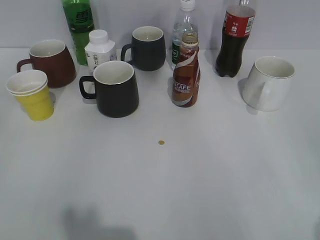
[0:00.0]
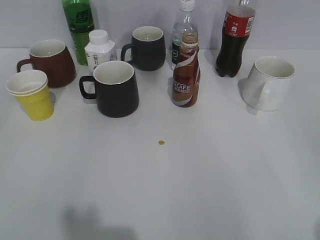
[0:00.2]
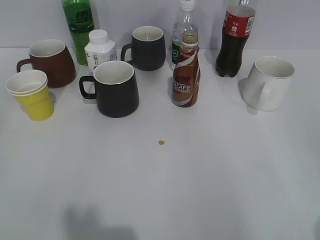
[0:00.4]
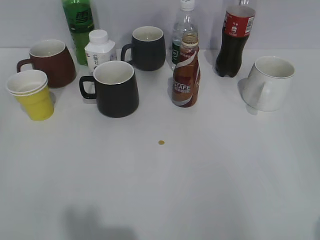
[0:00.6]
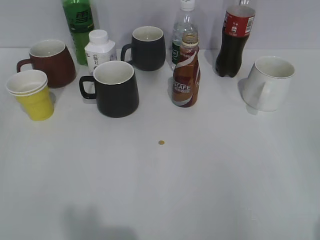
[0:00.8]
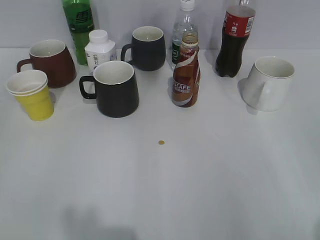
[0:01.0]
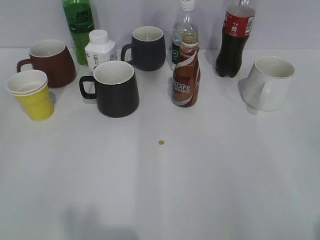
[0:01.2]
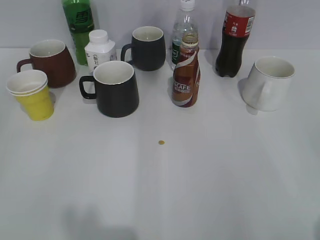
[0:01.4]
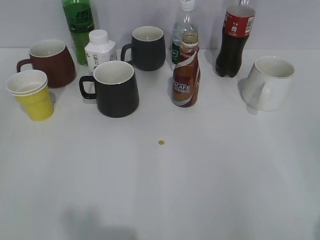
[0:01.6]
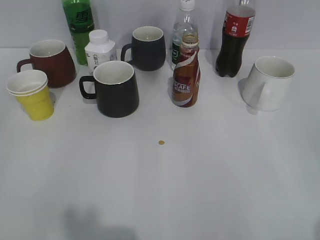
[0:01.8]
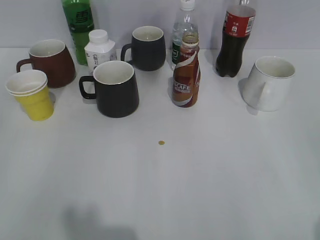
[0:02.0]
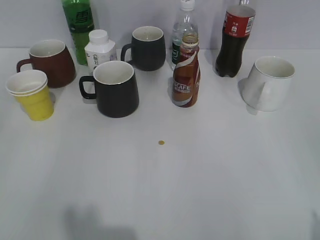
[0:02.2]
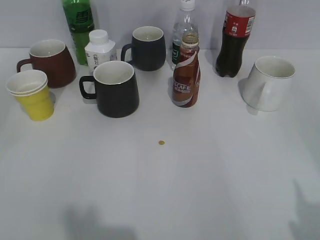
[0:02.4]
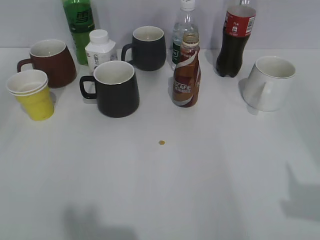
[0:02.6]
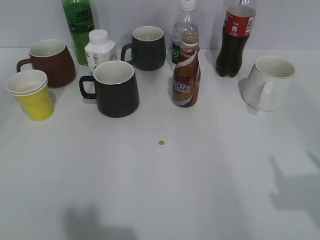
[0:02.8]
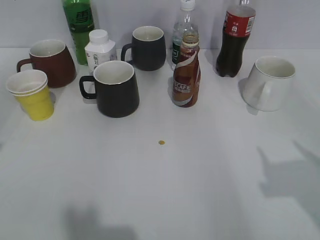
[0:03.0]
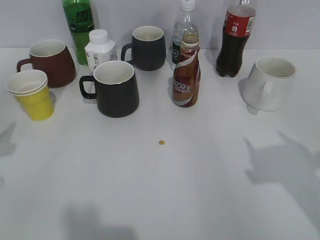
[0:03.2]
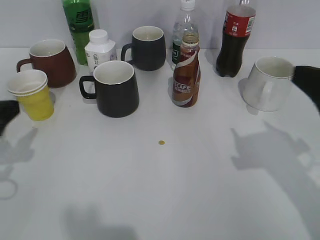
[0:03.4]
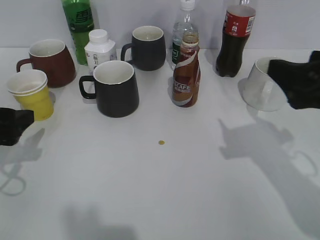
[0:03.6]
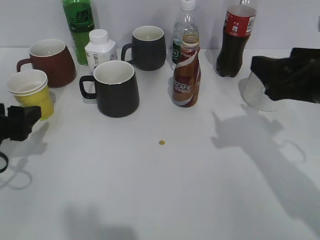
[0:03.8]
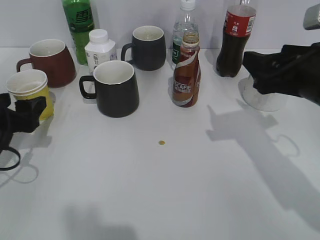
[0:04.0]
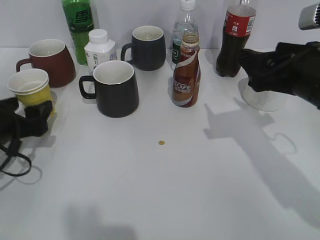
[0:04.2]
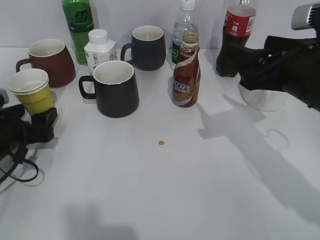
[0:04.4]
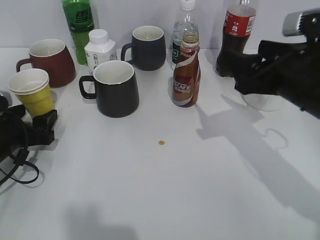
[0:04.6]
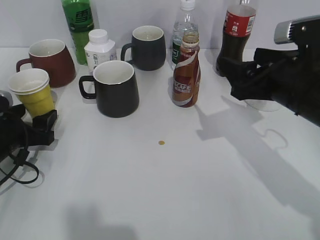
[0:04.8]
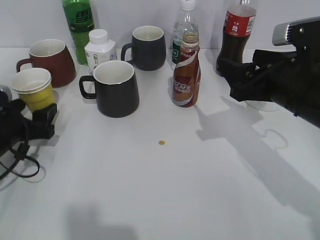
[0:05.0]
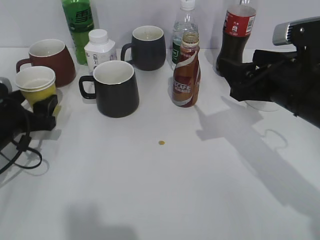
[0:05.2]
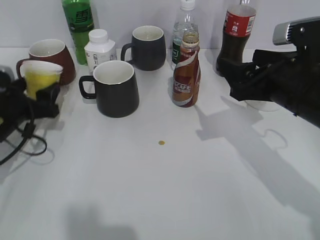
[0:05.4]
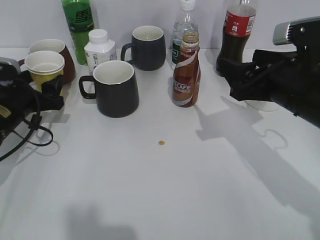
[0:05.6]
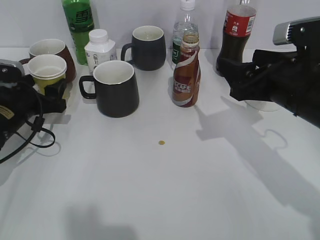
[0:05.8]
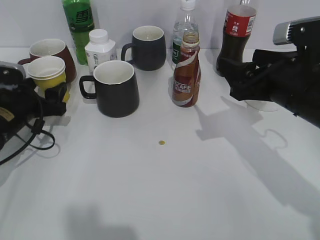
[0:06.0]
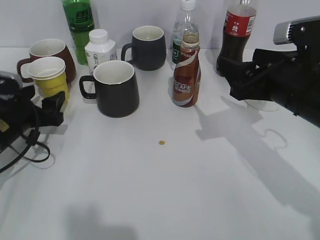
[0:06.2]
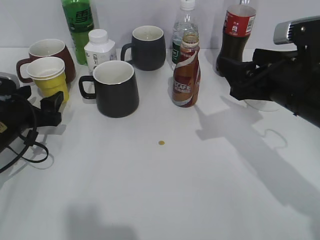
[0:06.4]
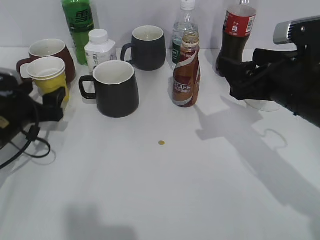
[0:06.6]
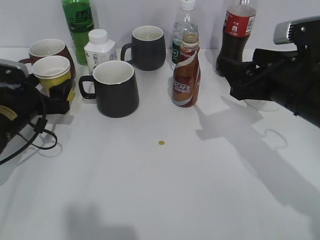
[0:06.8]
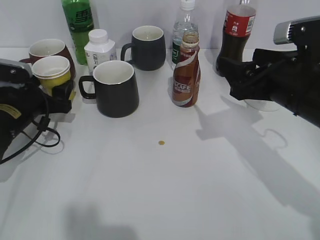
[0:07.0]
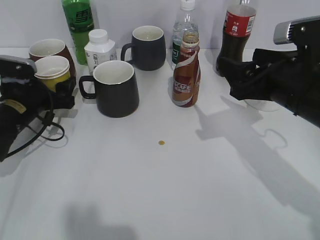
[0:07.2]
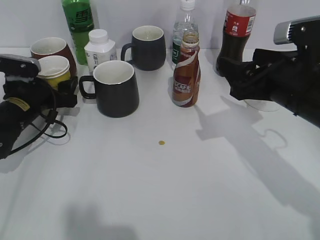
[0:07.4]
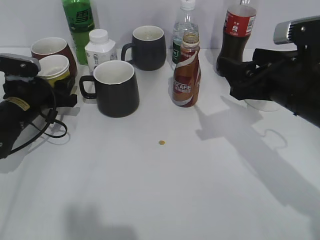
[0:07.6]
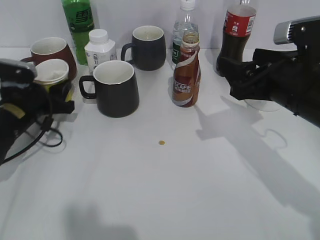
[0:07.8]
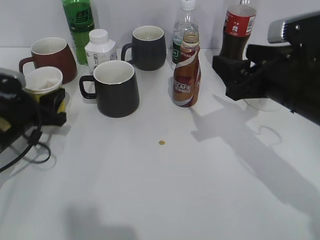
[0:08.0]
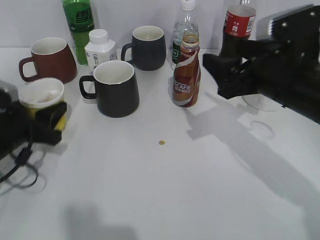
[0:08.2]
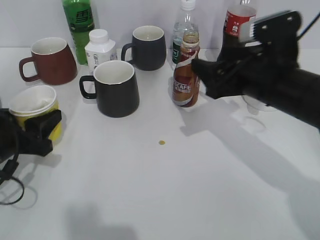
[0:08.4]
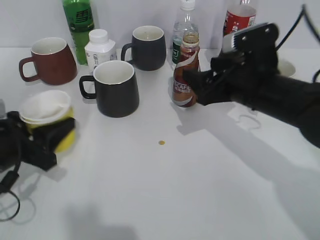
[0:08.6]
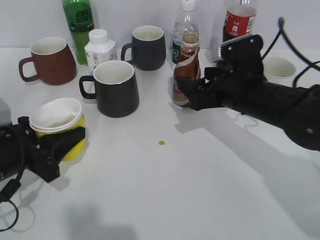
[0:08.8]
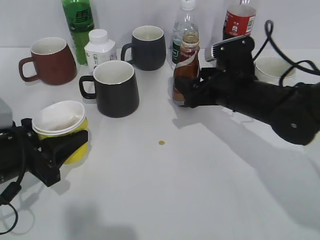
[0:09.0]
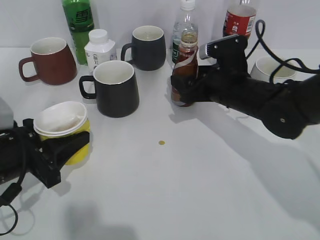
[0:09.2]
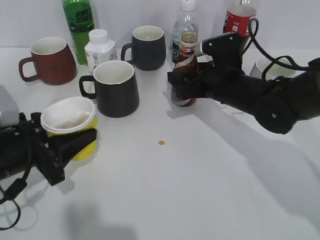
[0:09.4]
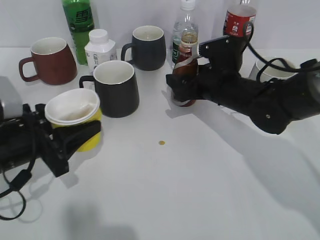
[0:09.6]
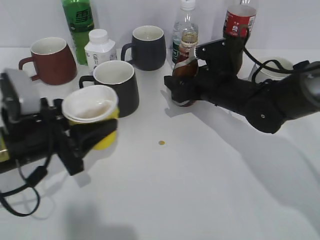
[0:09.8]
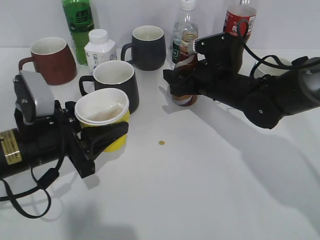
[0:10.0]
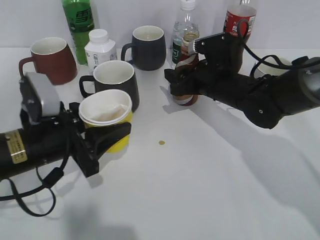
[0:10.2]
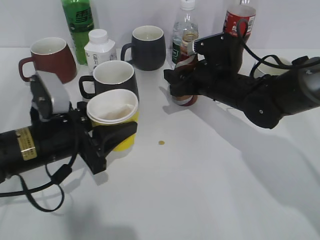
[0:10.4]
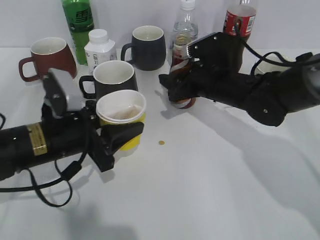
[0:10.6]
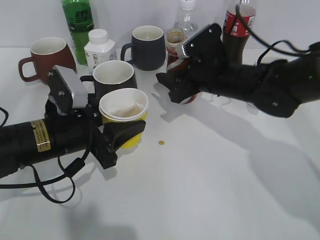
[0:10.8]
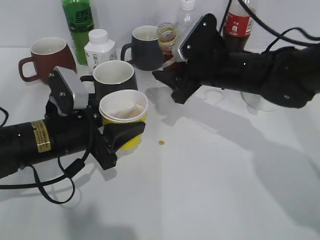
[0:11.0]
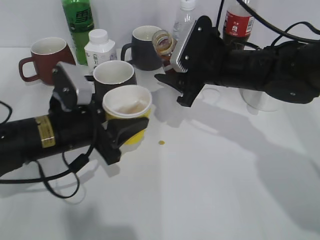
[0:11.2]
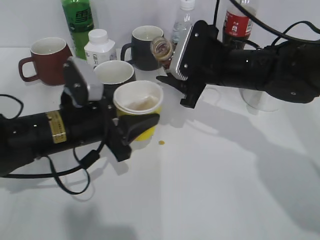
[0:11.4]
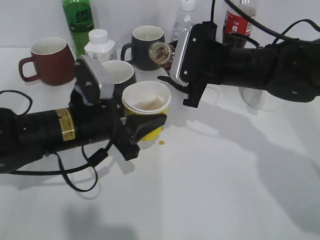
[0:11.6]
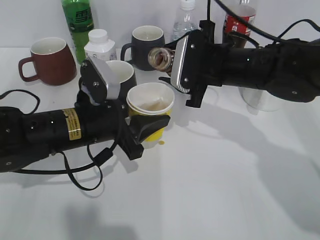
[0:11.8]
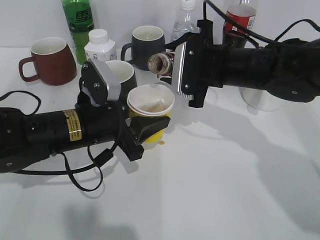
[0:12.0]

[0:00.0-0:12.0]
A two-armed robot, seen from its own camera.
Step, 1.8 to 7.6 s: Grasp the yellow paper cup with left gripper.
Step, 7.8 to 10.4 s: Grasp the bottle with coffee with right gripper.
1.6 to 3.0 s: The right gripper travels forward by some 10 cm.
3.0 to 4.4 s: The left gripper shifts approximately 20 cm downward and forward, and opens. Meanwhile the right gripper heads forward, to the left and downward, covering about 20 cm.
4.4 to 6.0 s: The left gripper goes about 5 cm forward.
6.0 to 7.6 s: There are only small adjustments of the grippers.
7.6 to 9.0 s: The right gripper is displaced forward, downward and to the left by some 10 cm. Meanwhile the left gripper moves backward, about 15 cm.
9.0 to 10.4 s: The left gripper moves to the right, roughly 5 cm. The right gripper goes roughly 5 cm forward, and closes.
10.4 to 12.0 s: The left gripper travels to the right by approximately 5 cm, while the right gripper travels upward by approximately 5 cm.

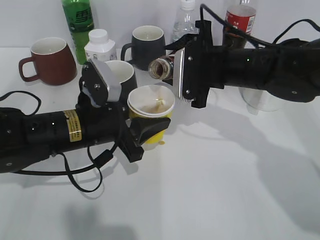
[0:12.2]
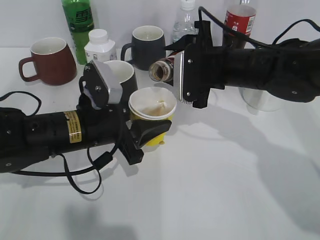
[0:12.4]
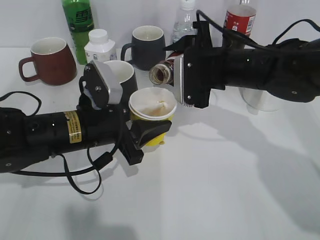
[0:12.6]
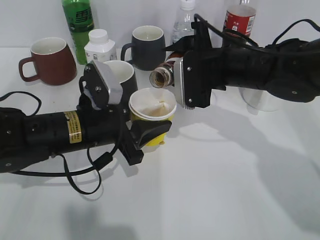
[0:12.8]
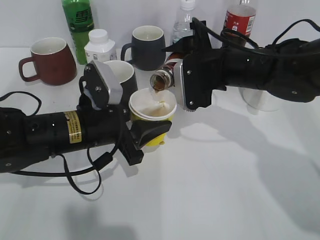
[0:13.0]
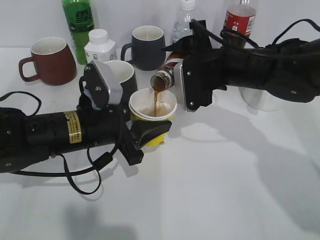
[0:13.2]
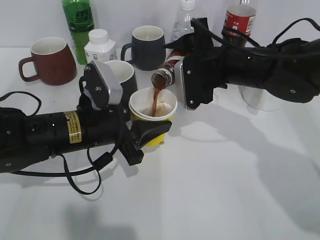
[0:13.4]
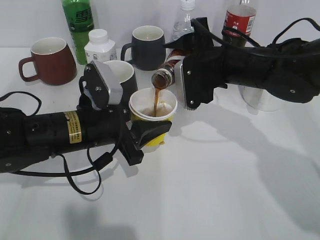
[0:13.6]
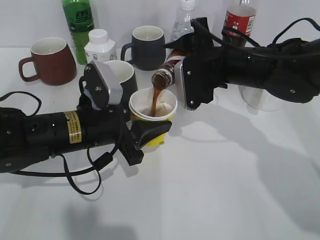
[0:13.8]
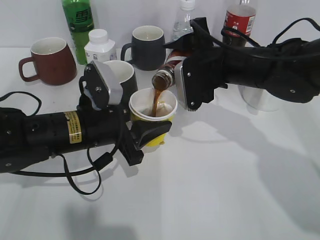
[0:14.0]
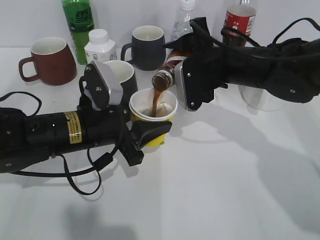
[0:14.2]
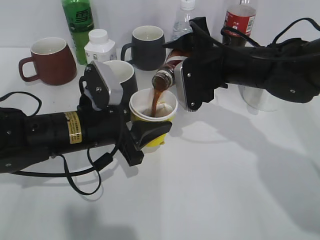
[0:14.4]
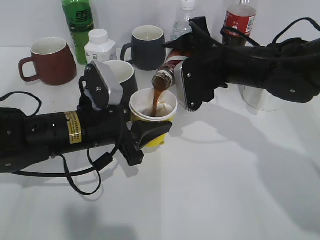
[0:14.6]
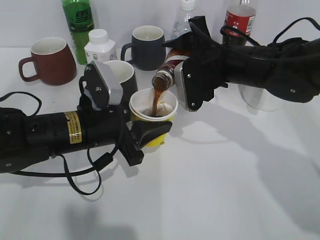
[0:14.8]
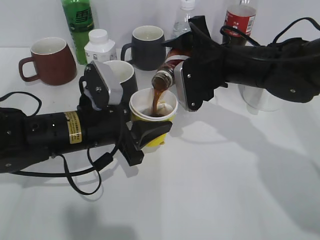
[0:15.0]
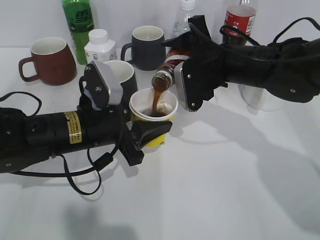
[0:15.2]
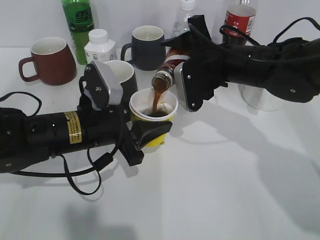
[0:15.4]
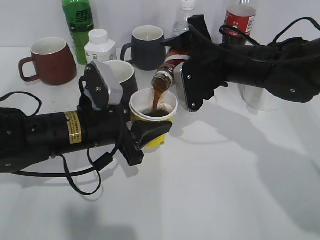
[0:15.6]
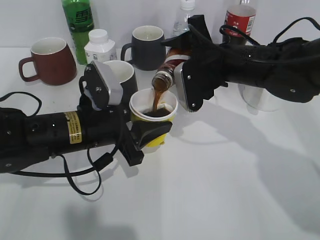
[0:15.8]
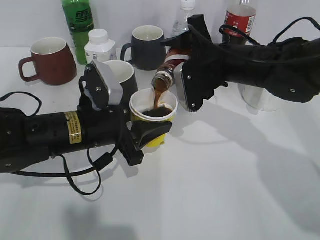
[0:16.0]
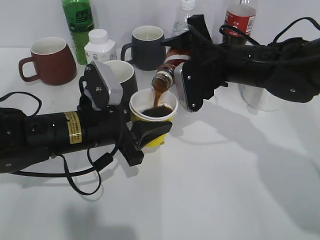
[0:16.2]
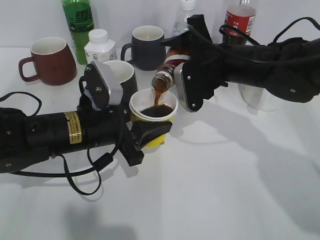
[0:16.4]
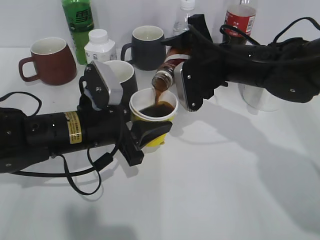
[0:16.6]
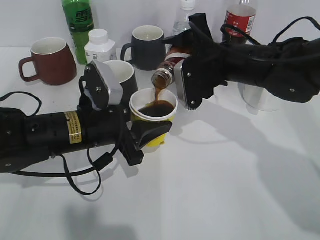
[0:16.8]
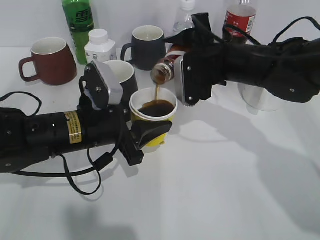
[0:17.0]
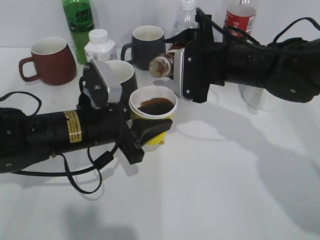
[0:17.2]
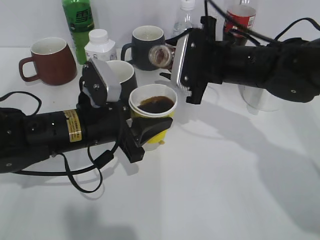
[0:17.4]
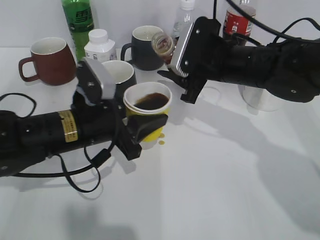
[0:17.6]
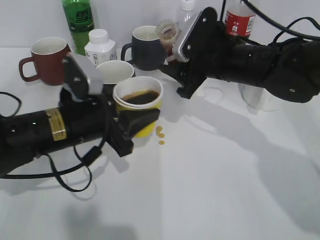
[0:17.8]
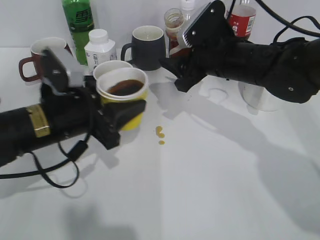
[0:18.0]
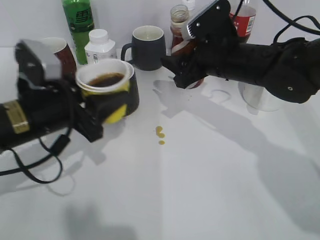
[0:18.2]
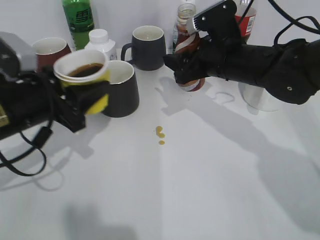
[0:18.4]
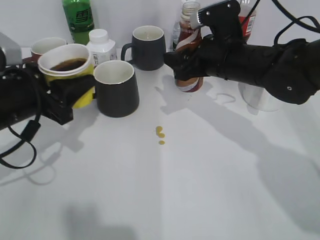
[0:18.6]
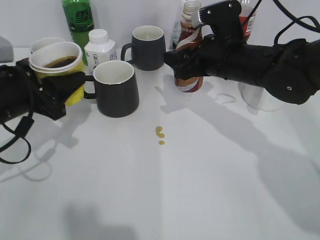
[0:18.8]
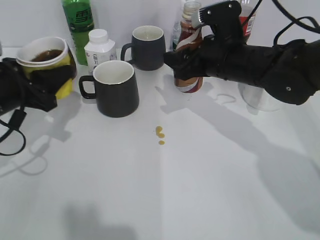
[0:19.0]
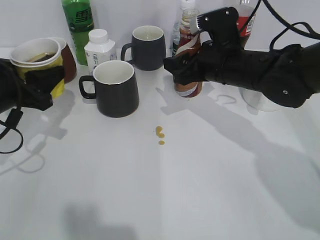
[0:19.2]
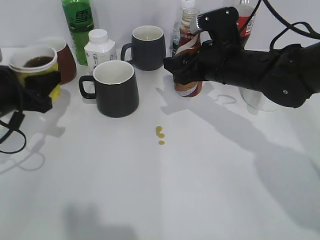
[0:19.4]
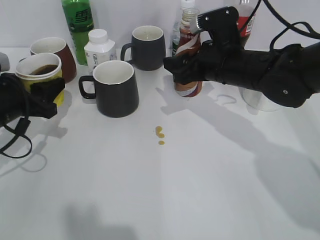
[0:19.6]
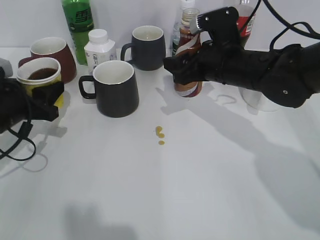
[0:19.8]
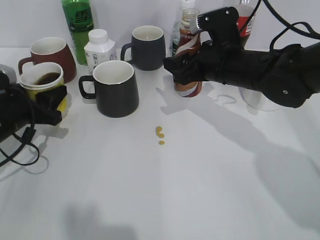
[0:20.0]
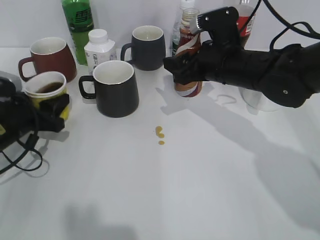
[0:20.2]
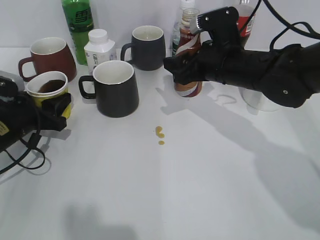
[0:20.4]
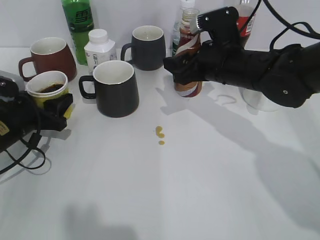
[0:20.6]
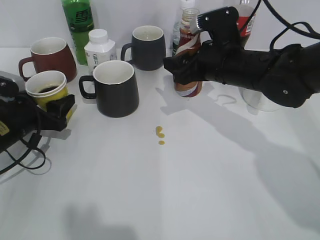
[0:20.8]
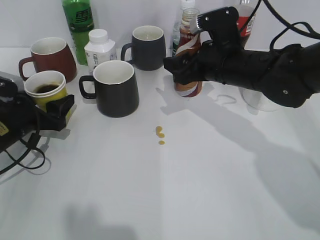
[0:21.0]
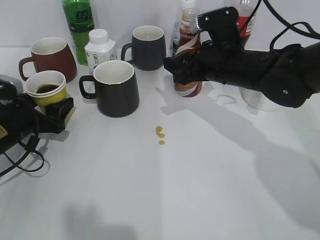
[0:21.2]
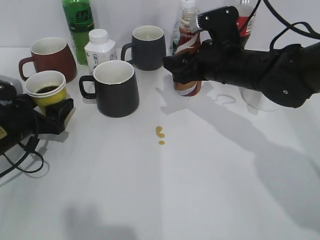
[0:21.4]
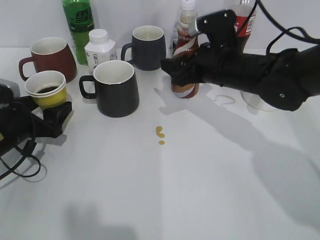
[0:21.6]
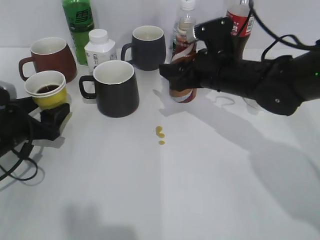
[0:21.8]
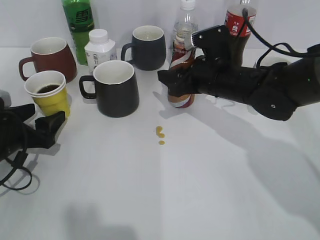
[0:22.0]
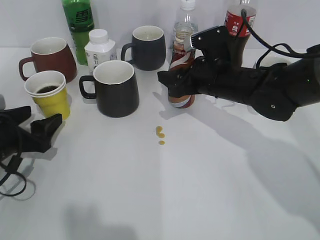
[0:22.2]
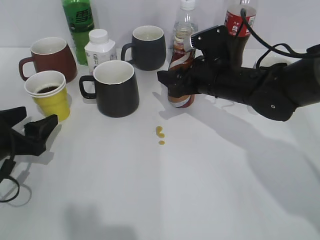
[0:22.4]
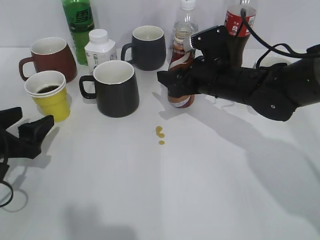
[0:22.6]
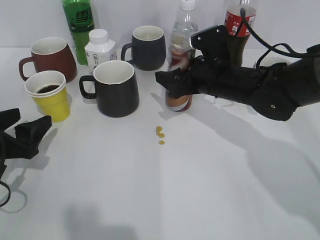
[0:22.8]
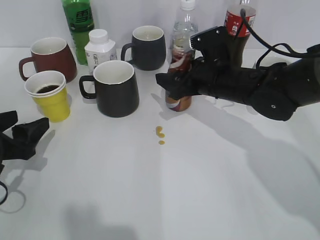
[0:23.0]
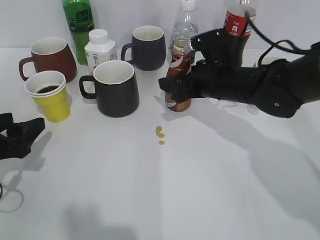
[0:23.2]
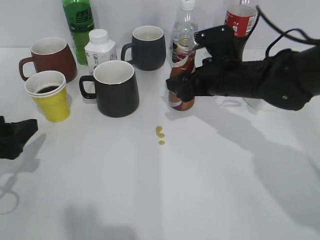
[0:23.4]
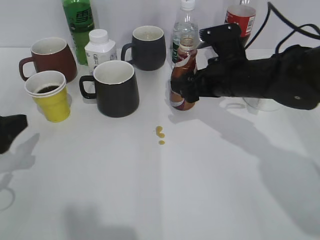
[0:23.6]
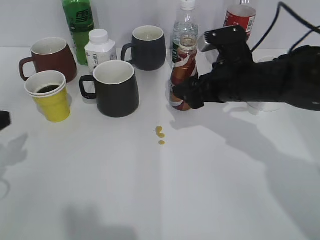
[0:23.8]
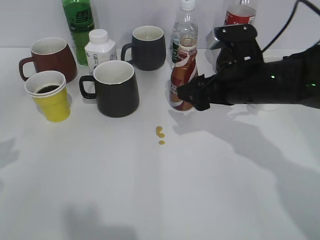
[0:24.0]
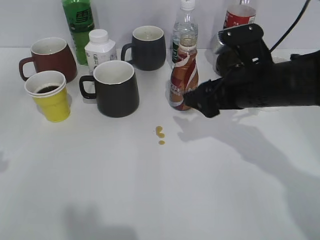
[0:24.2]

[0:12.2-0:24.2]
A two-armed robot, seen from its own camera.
Step, 12.2 to 17.4 s: Pour the coffee from bottle to cup with right gripper.
Step, 17.6 to 21.6 s: Place the yellow paper cup on the table with left gripper.
Step, 21.8 to 24.0 s: Place the coffee bottle on the table with right gripper.
12.2 to 13.8 s: The grippers move only a little.
13.8 to 15.2 s: The grippers stay close to where they were, moving slightly.
15.2 to 16.6 s: The two grippers keep their place.
16.6 to 18.2 s: The left gripper heads to the left, covering roughly 5 cm.
18.2 to 19.8 s: The left gripper travels to the left by about 10 cm.
19.8 to 21.2 s: The left gripper opens.
21.2 to 22.6 s: The left gripper travels backward by roughly 5 cm.
22.6 to 24.2 s: The right gripper heads backward, covering approximately 5 cm, and opens; the left gripper heads upward and backward, covering approximately 15 cm.
